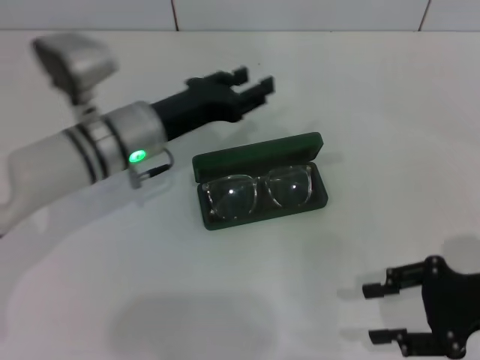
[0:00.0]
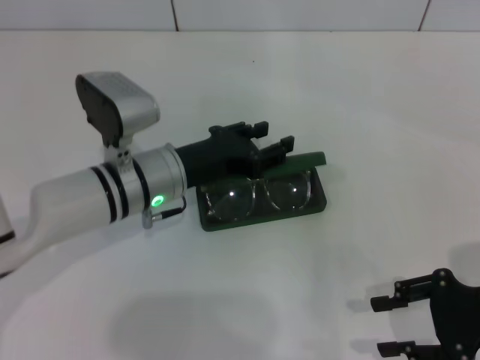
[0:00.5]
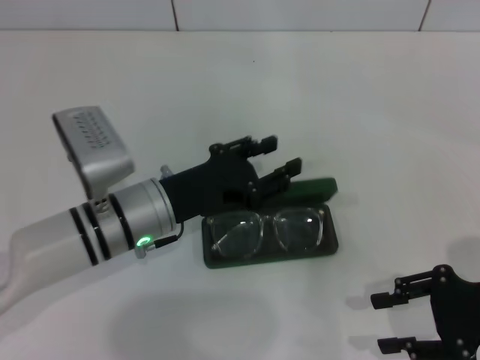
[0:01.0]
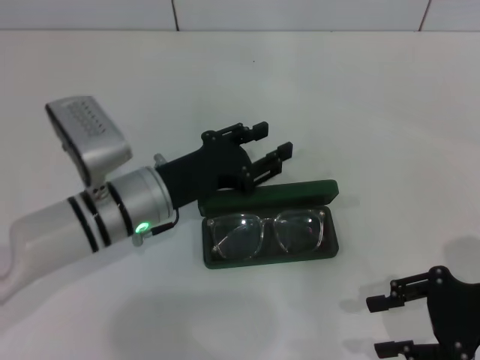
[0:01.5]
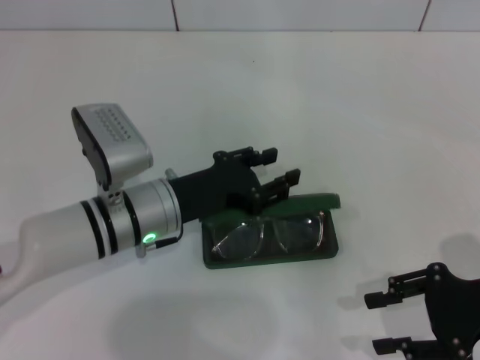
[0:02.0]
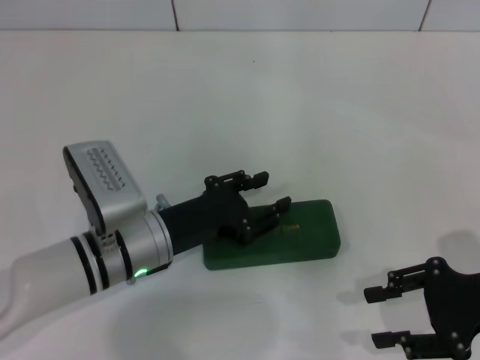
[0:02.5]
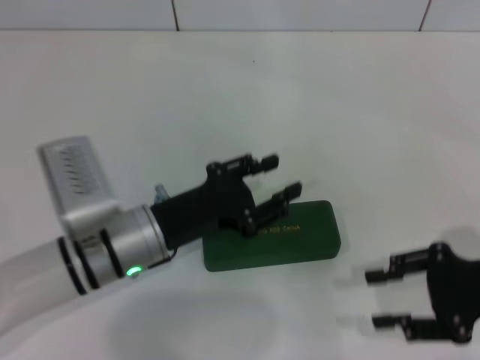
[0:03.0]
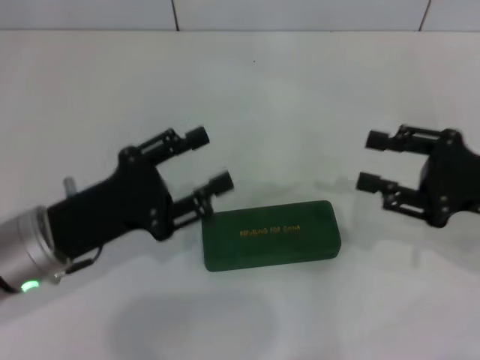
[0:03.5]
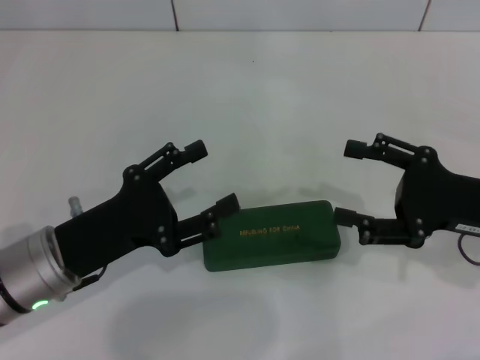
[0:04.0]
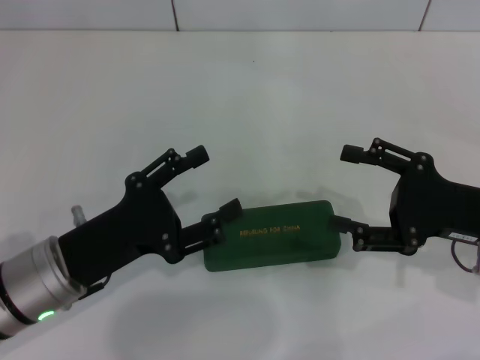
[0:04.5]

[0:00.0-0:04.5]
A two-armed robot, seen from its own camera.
Step, 0:00.0 to 0:02.5: Close the glasses case with your left hand.
0:00.0 to 0:02.0: The left gripper travels backward by about 5 cm.
0:02.0 to 0:04.5: The left gripper goes roughly 10 cm backward and to the left, and opens its fingers.

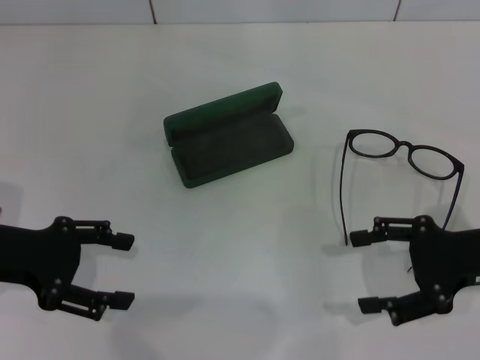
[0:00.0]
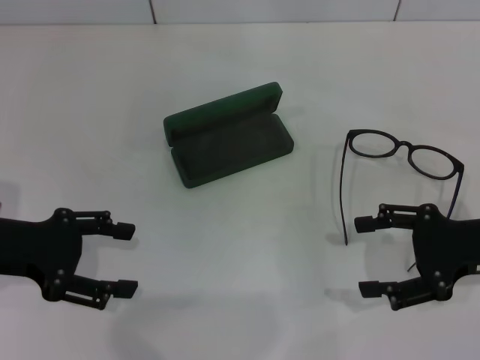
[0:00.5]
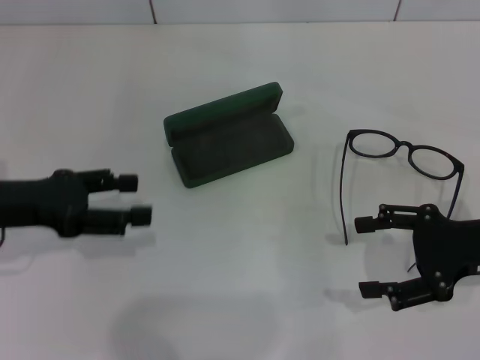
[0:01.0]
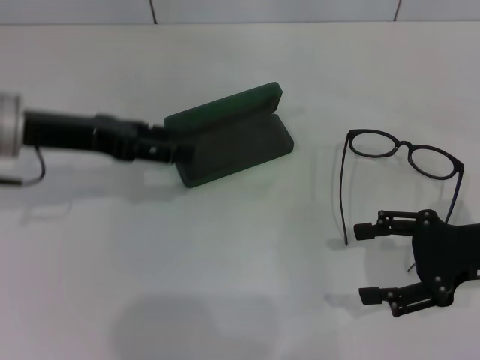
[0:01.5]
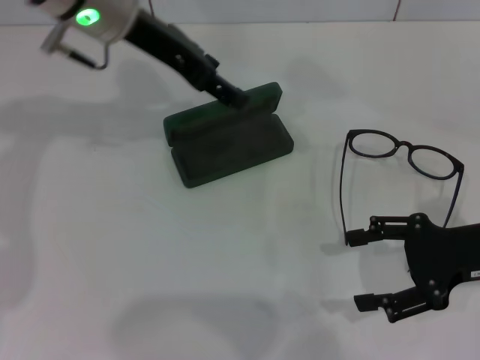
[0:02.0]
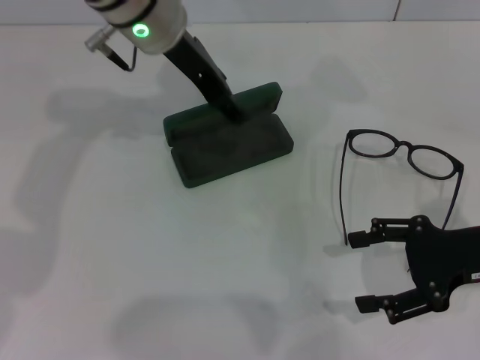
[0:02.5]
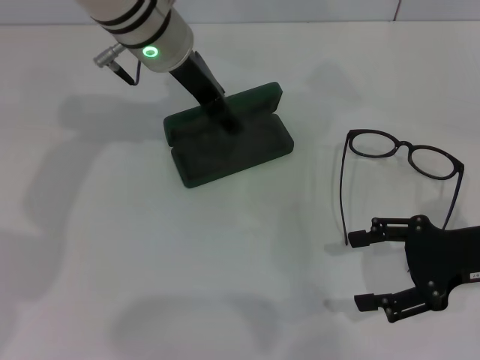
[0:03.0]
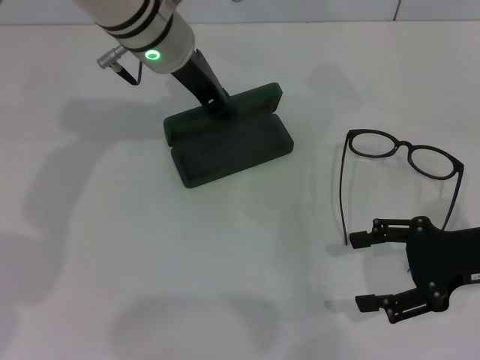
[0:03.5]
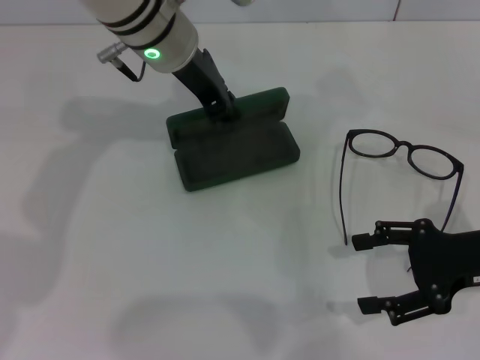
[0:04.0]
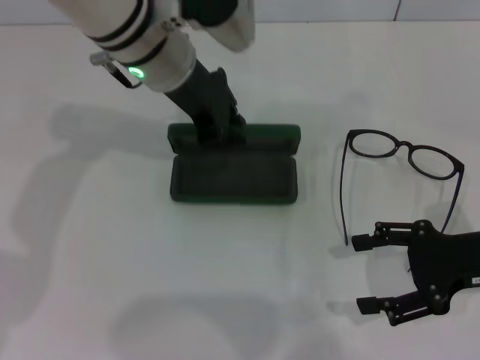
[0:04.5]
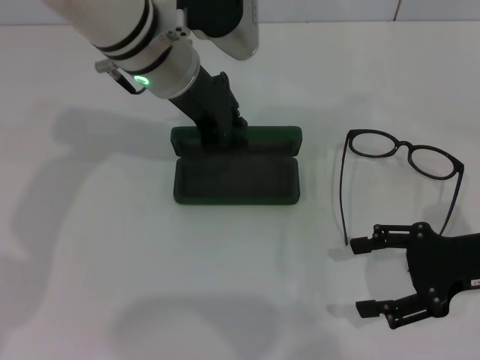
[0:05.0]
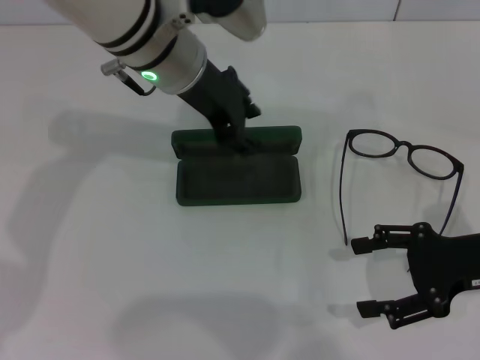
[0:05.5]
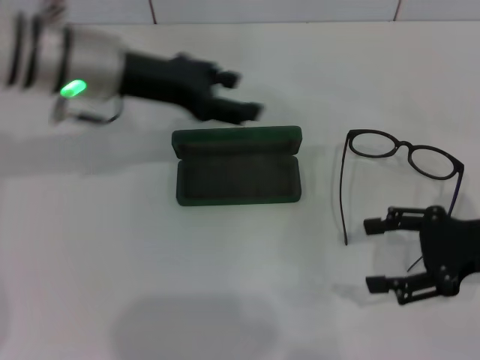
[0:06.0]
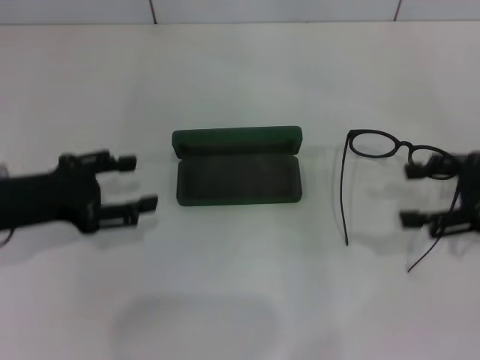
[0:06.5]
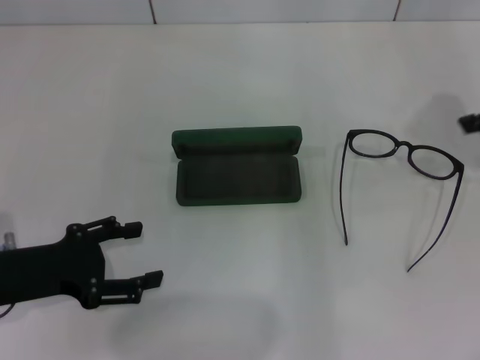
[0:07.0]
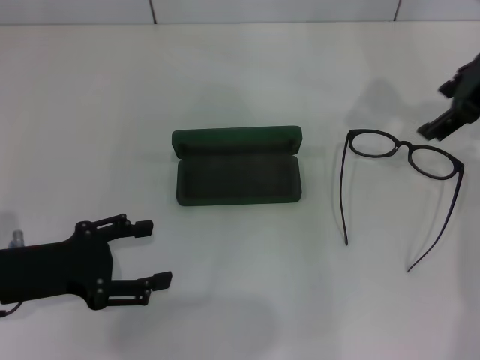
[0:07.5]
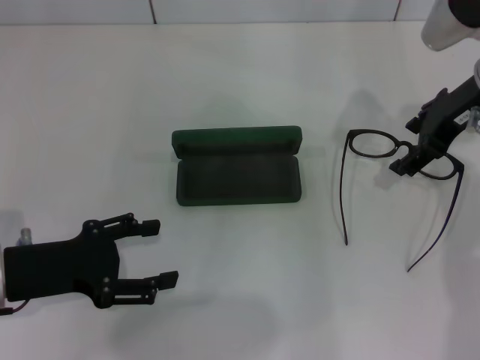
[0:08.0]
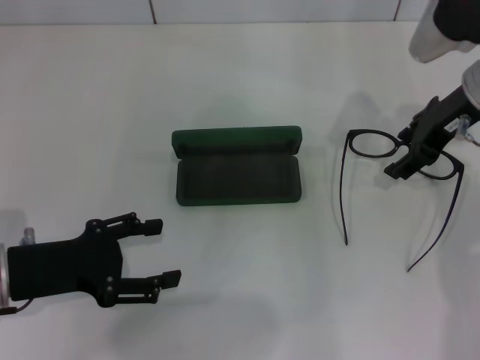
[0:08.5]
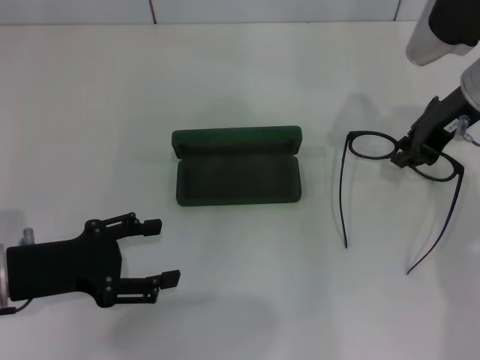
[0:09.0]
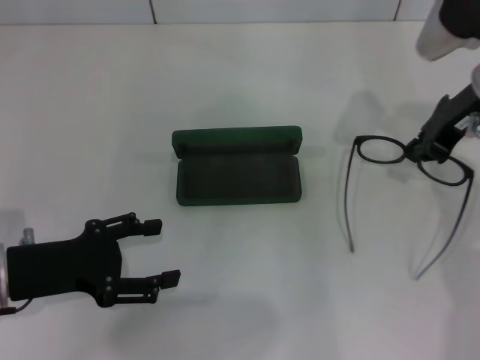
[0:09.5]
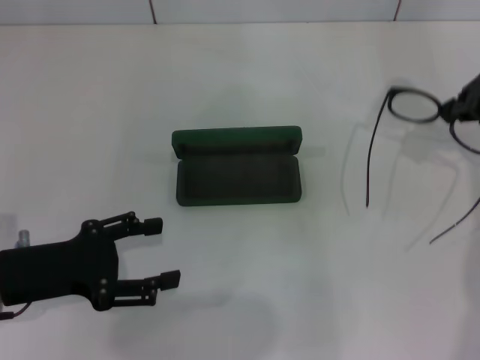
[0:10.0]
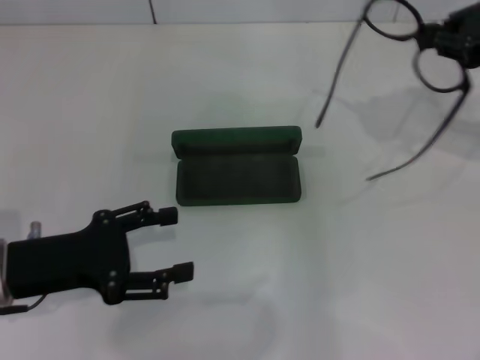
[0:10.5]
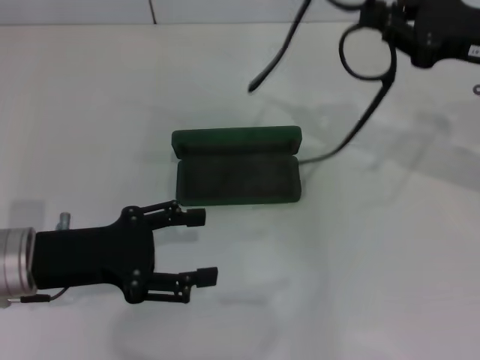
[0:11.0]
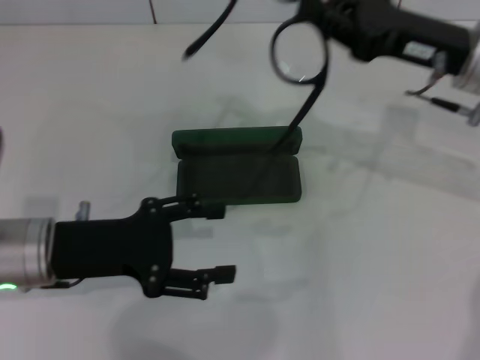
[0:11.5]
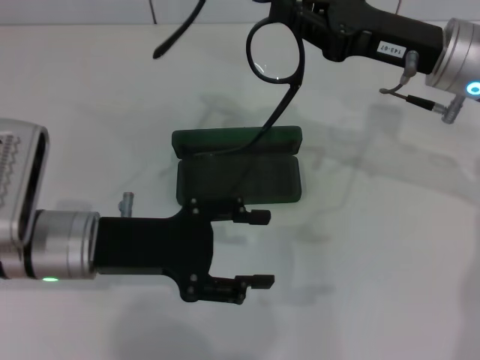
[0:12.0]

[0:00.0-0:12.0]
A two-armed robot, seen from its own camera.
Step, 0:00.0 to 0:03.0: Grab the glasses case with your left hand.
Step, 0:03.5 to 0:05.0: Place the glasses case in the center of the table with your left hand.
Step, 0:05.5 to 0:09.0: Grab the eyeglass frame with your right hand.
0:00.0 to 0:02.0: The left gripper travels forward, to the right and upward by approximately 25 cm.
0:02.0 to 0:04.0: The left gripper moves to the right, some 5 cm, and closes its fingers.
0:04.0 to 0:06.0: The left gripper heads to the left, covering about 10 cm, and opens.
0:06.0 to 0:08.0: The left gripper travels backward, downward and to the left by some 20 cm; the right gripper goes approximately 15 cm forward, upward and to the left.
0:08.0 to 0:10.0: The right gripper moves some 5 cm, and closes its fingers.
0:10.0 to 0:12.0: The left gripper is displaced to the right by approximately 10 cm. The right gripper heads to the left and downward, covering about 10 cm.

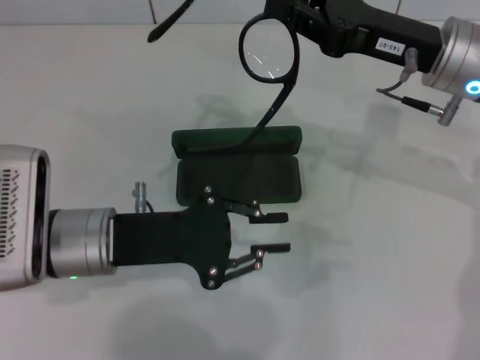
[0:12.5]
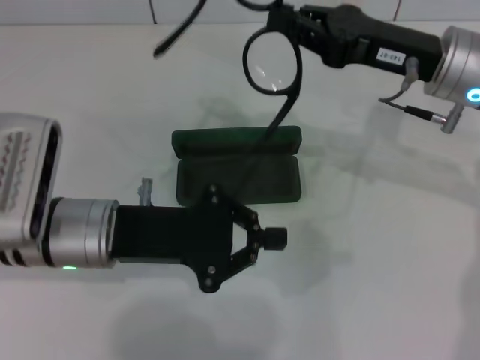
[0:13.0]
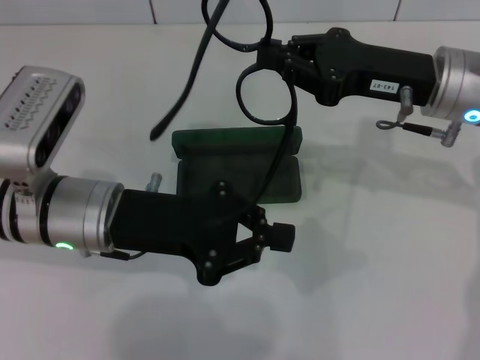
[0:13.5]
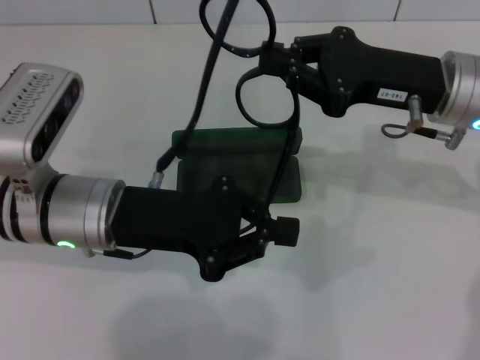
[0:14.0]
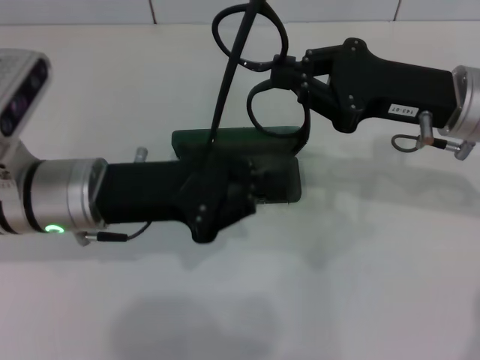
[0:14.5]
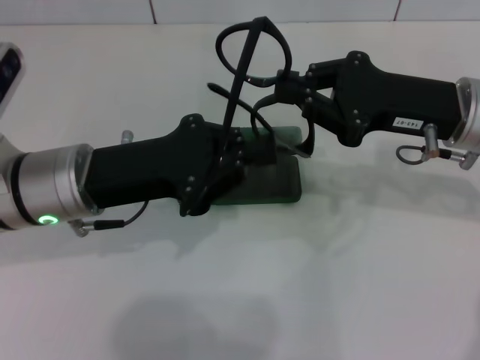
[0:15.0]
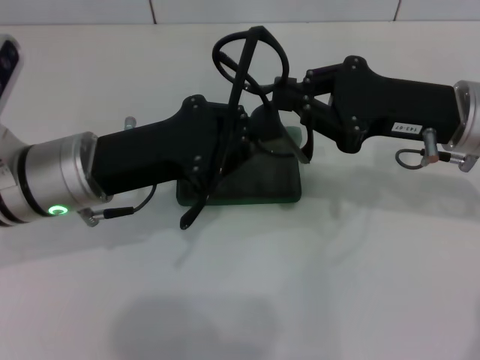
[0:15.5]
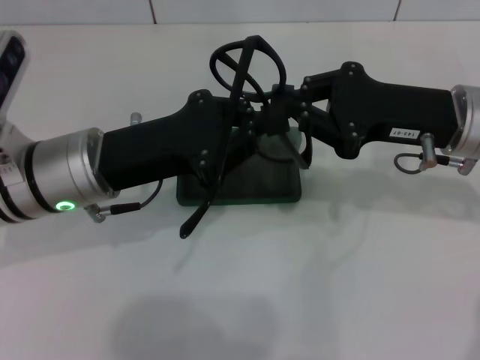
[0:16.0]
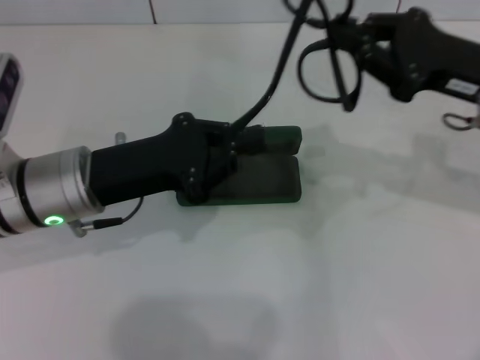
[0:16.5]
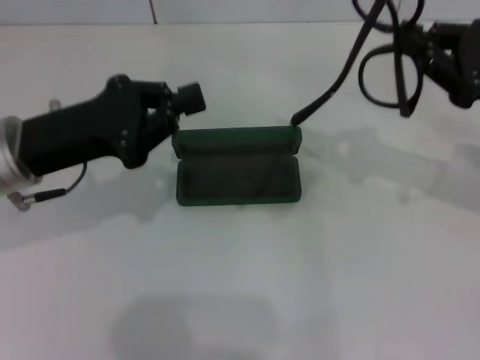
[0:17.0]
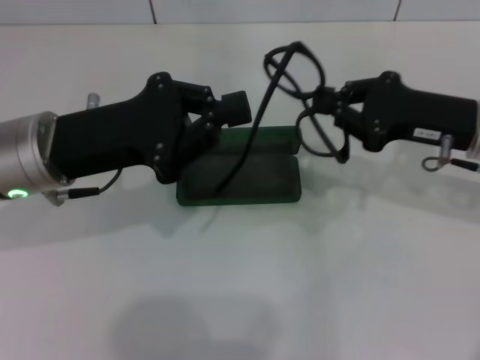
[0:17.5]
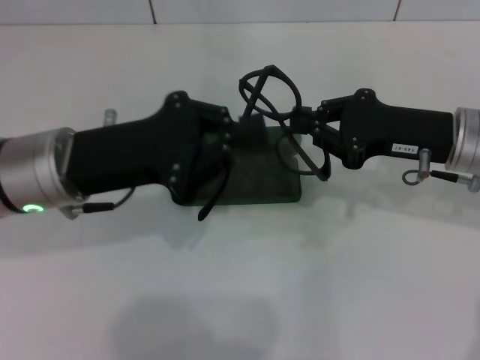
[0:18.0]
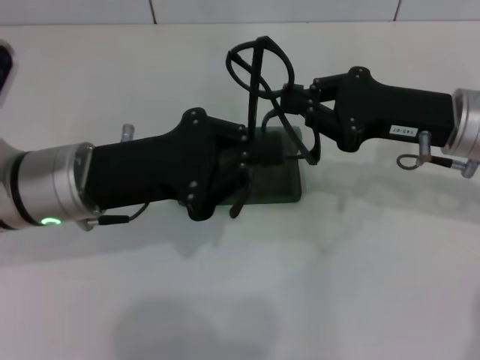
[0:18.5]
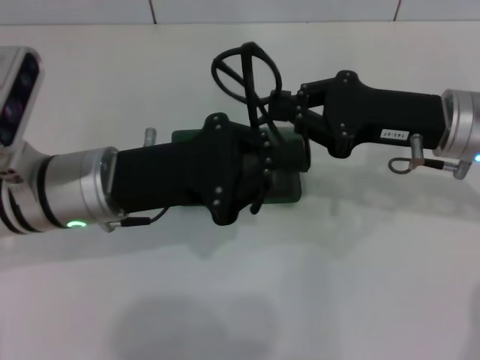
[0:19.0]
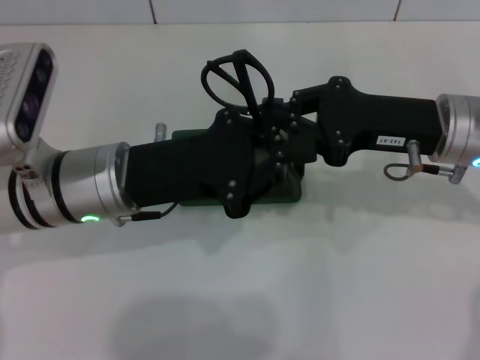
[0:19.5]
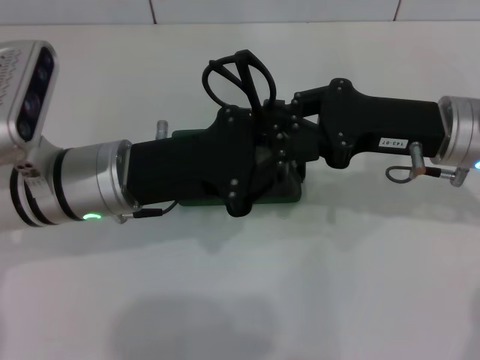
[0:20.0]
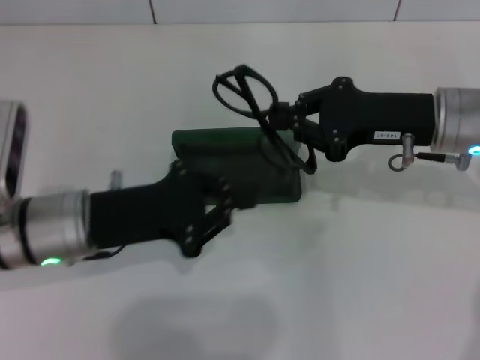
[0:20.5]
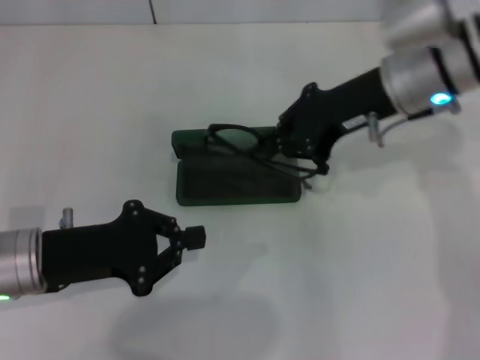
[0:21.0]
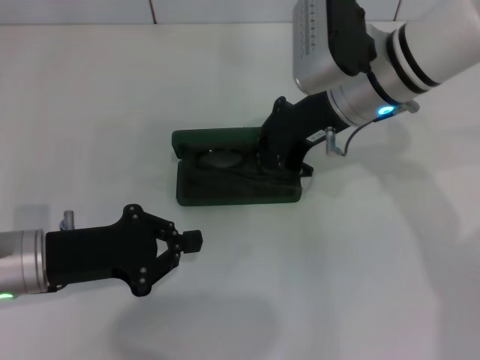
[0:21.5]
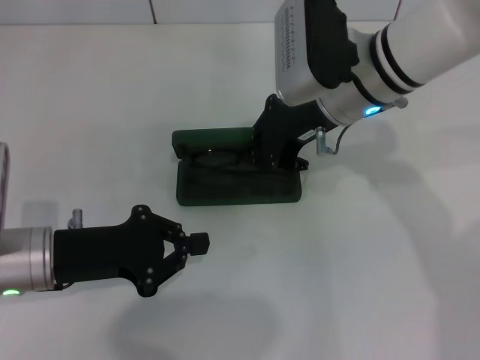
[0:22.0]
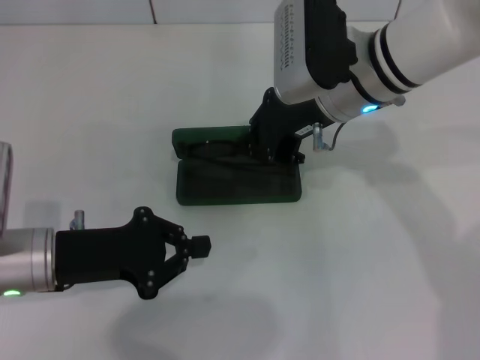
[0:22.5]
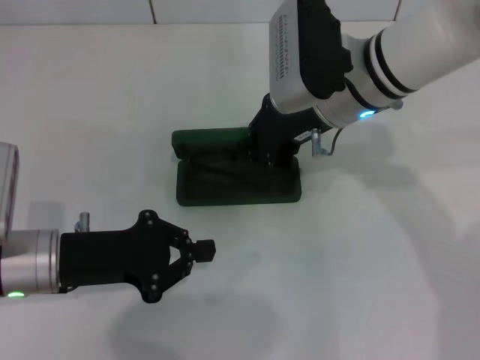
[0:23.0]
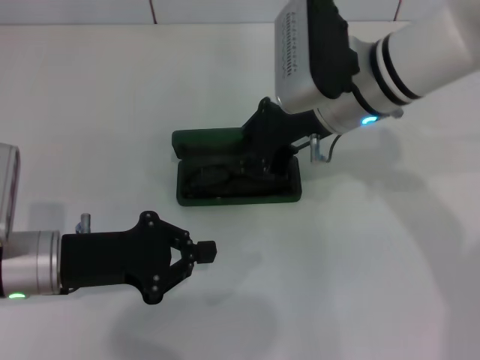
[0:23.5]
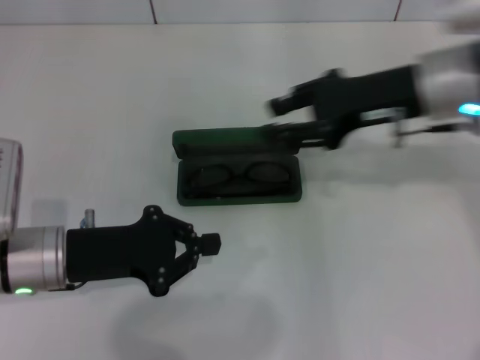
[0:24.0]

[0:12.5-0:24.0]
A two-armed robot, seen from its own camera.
Step, 0:12.5 to 0:19.5: Fold the frame with your left hand.
Step, 0:20.0 to 0:23.0: Put the glasses into the case with your right hand.
0:12.5 to 0:14.5: The left gripper closes up.
0:18.5 to 0:20.0: There are only small adjustments of the grippers.
0:20.0 to 0:22.0: The left gripper is displaced to the left and downward by roughly 10 cm; the right gripper moves to the left and forward, approximately 10 cm.
0:22.0 to 0:24.0: The right gripper moves to the right, approximately 10 cm.
